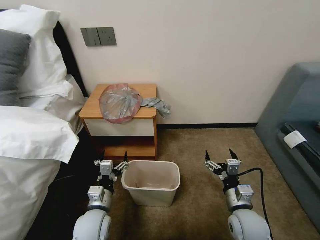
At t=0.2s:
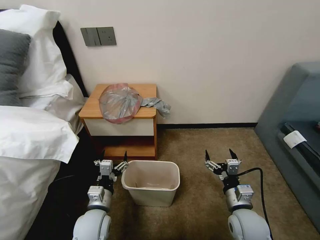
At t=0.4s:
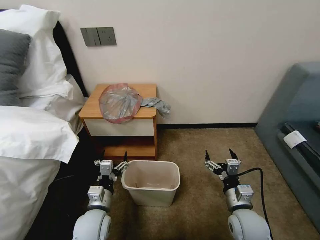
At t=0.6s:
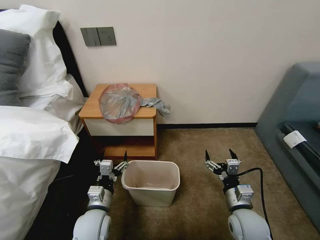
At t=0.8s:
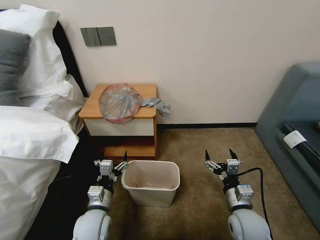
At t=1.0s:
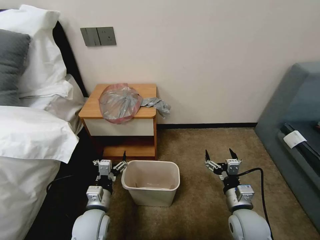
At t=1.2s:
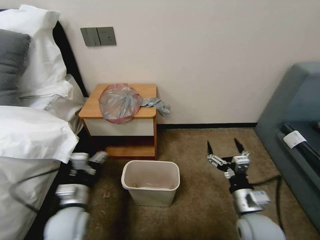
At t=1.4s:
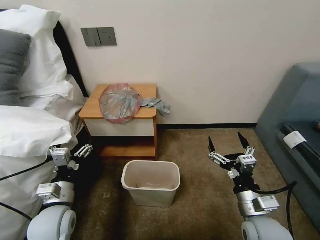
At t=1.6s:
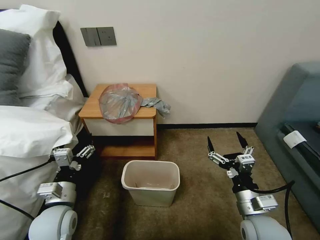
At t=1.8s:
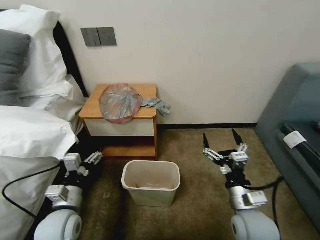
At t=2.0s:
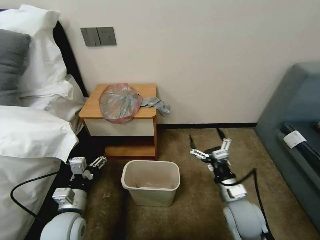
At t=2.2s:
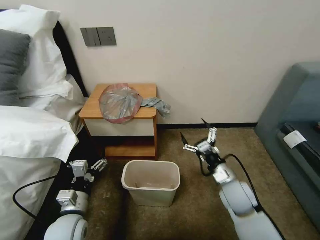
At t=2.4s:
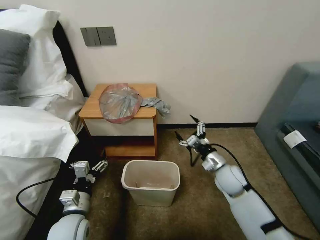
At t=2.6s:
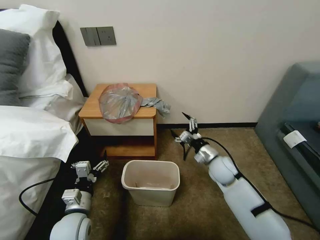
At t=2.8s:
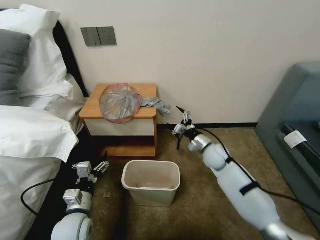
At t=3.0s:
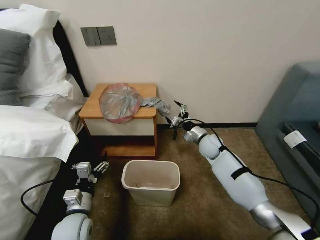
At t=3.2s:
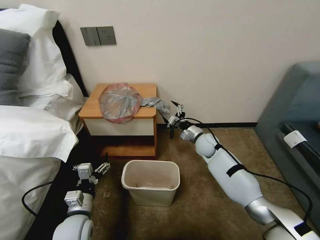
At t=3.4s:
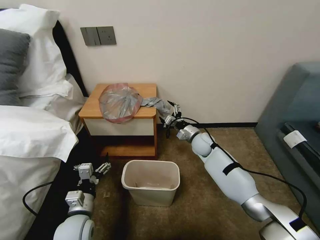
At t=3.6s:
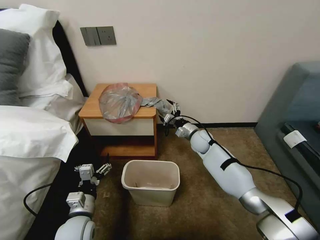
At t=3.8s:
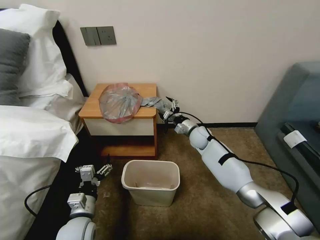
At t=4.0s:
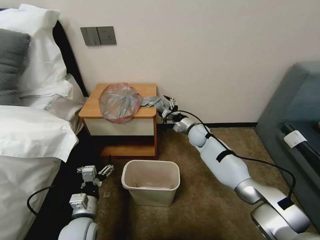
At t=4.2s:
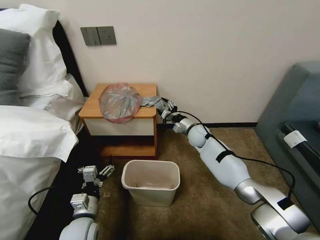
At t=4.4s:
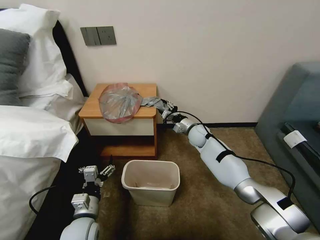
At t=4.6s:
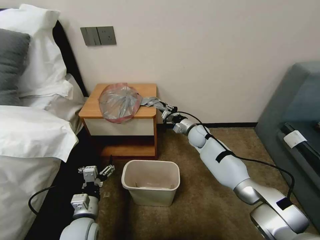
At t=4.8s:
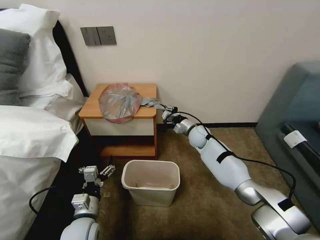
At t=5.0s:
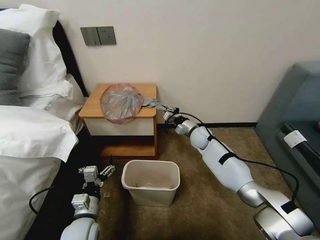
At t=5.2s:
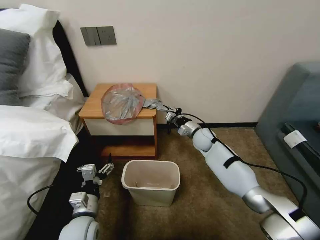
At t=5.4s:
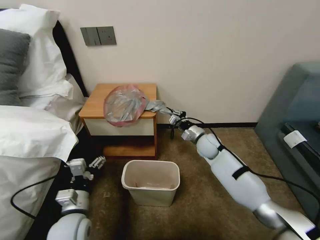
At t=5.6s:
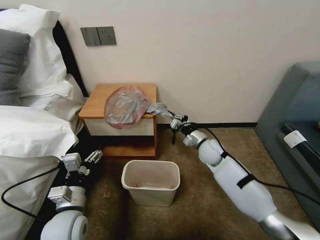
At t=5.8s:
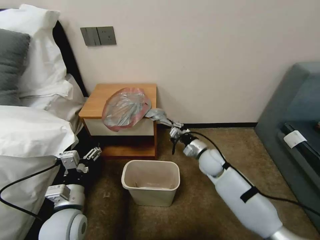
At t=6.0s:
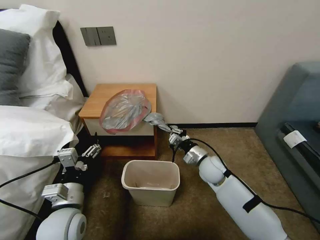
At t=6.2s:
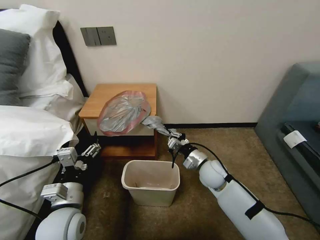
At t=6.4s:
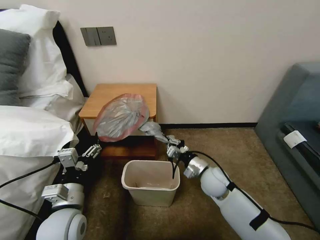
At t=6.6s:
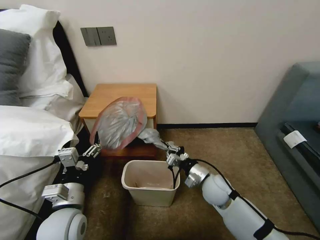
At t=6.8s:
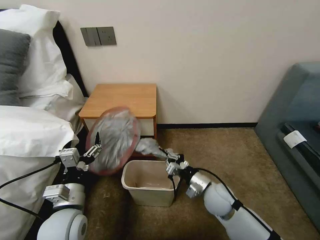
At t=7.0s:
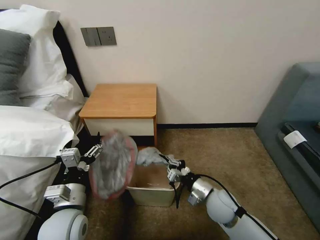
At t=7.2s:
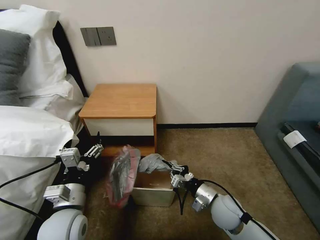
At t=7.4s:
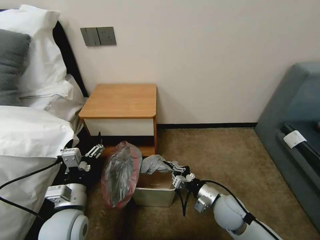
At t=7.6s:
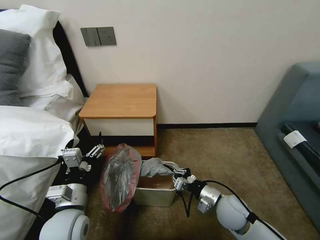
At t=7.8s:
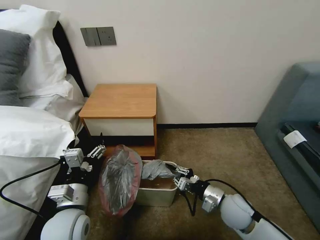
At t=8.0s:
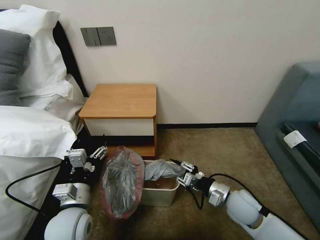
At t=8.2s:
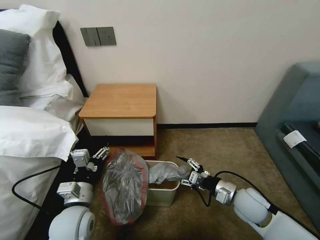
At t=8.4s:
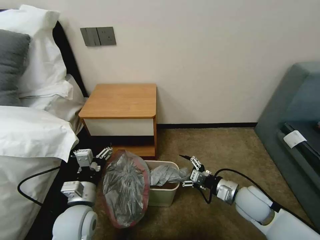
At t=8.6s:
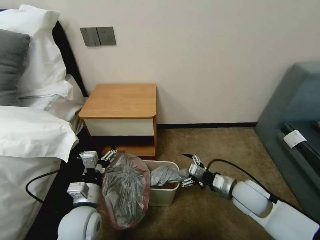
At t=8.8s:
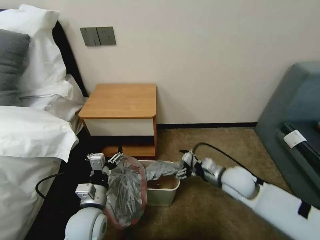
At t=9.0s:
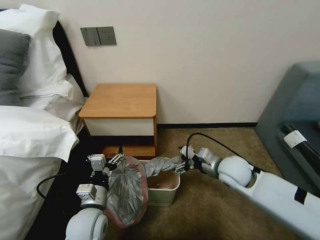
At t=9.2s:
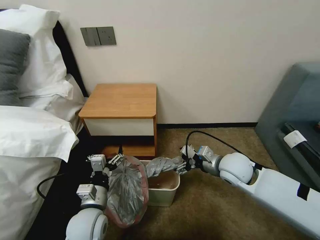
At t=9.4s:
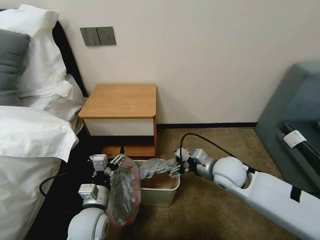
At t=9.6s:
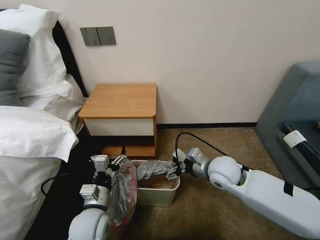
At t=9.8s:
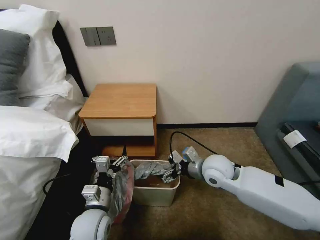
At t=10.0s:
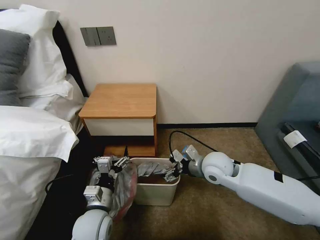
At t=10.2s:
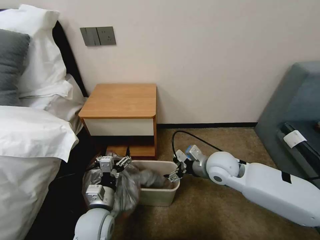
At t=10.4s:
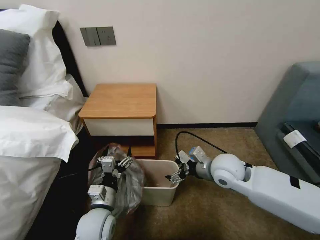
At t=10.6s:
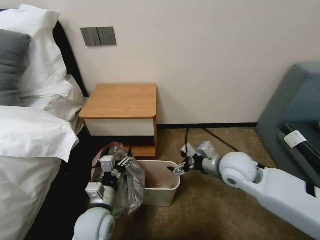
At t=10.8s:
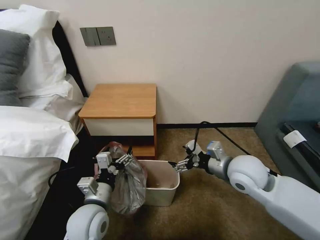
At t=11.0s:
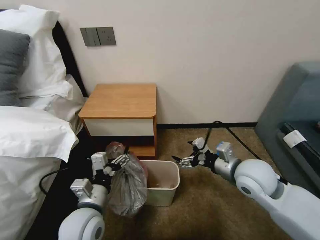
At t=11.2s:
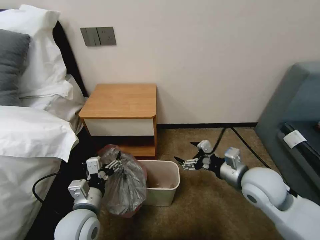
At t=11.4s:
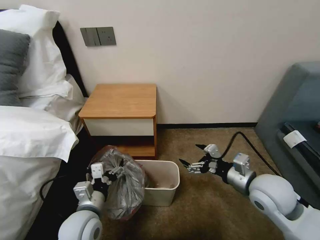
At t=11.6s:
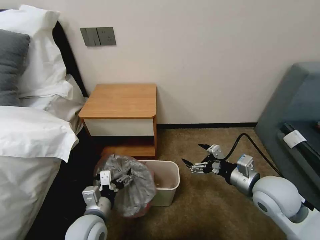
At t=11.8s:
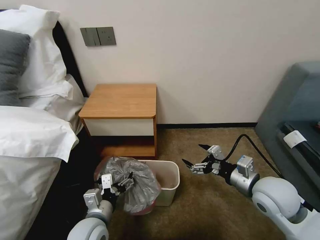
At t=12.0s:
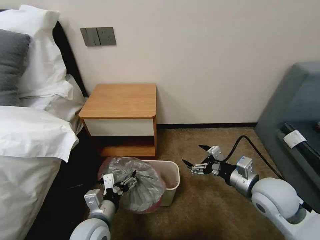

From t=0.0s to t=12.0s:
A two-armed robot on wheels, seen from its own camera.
Task of the whole recording: Pick up the garbage bag from the table and place it over the trash can.
From t=1.6s to t=3.0s: The left gripper moves downward, about 5 cm. The right gripper heads forward, covering approximately 30 cm.
From t=3.0s to t=4.4s: The right gripper heads forward, covering some 5 cm, and closes up.
From t=4.4s to t=6.0s: The left gripper travels upward by about 10 cm, while the right gripper travels backward by roughly 15 cm, and closes up.
From t=6.0s to t=7.6s: The right gripper goes about 15 cm backward.
From t=7.6s to t=9.0s: The left gripper heads downward, covering about 5 cm. Meanwhile the right gripper is displaced upward and forward by some 15 cm, and opens its fingers.
From t=9.0s to t=10.4s: The grippers stay close to where they were, moving slightly.
From t=10.4s to t=12.0s: The right gripper moves to the right and backward, roughly 10 cm.

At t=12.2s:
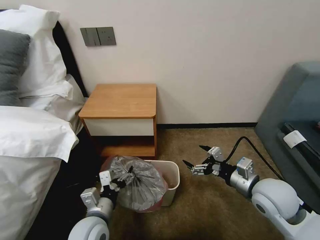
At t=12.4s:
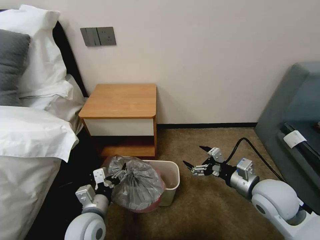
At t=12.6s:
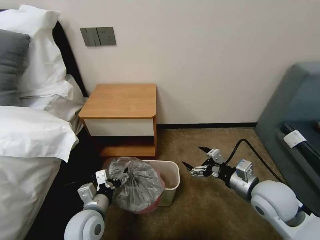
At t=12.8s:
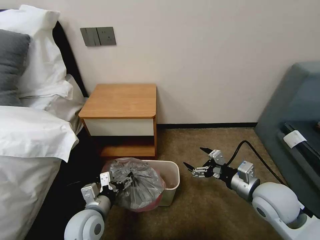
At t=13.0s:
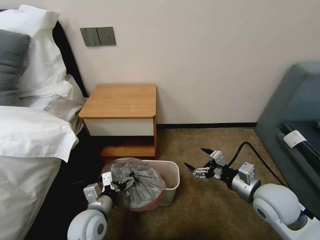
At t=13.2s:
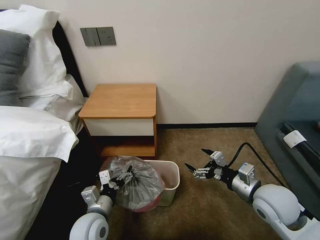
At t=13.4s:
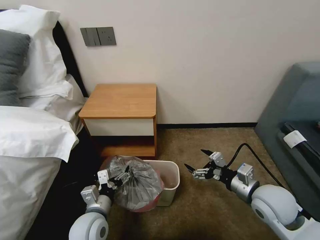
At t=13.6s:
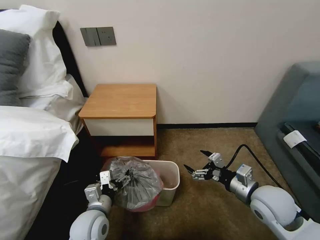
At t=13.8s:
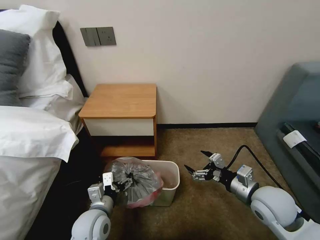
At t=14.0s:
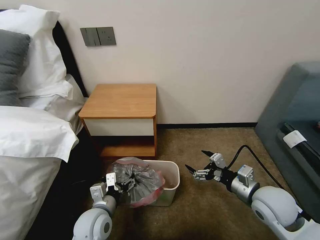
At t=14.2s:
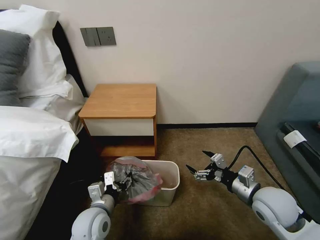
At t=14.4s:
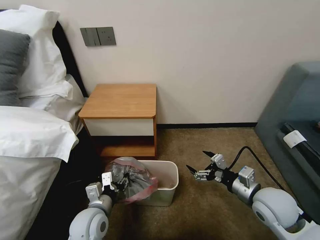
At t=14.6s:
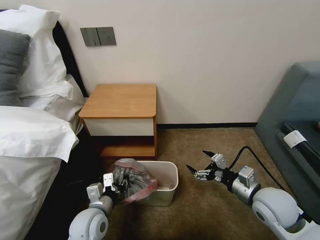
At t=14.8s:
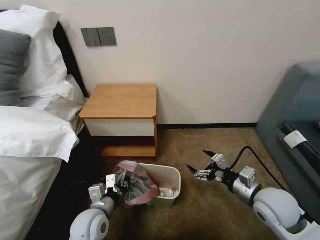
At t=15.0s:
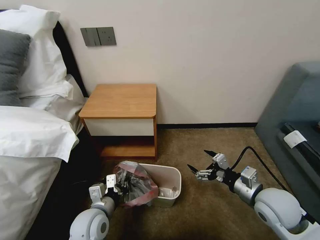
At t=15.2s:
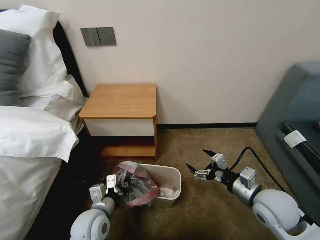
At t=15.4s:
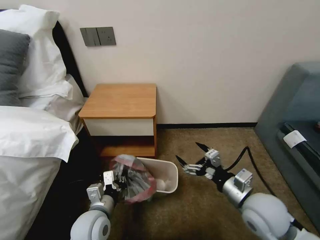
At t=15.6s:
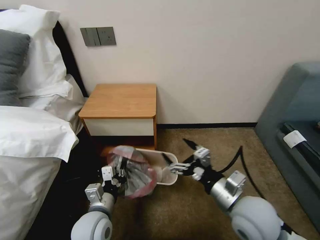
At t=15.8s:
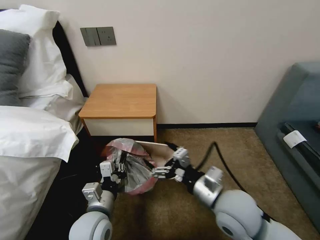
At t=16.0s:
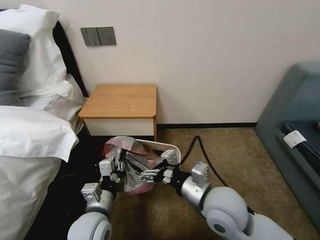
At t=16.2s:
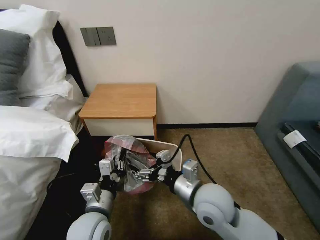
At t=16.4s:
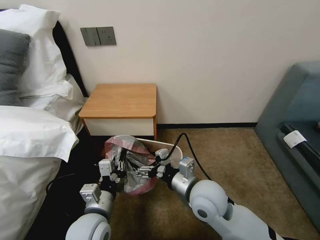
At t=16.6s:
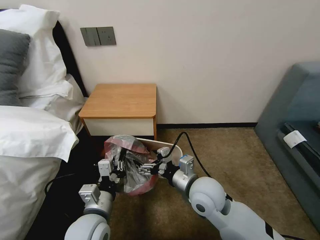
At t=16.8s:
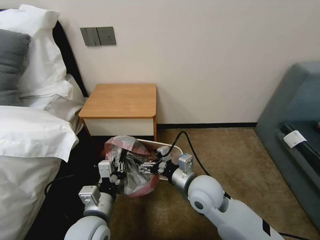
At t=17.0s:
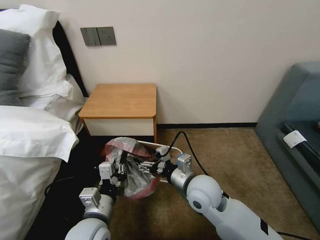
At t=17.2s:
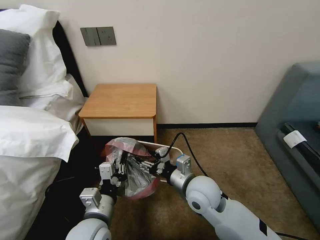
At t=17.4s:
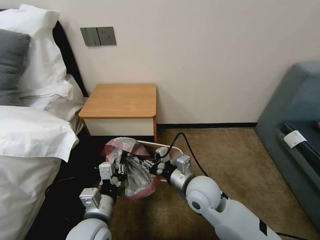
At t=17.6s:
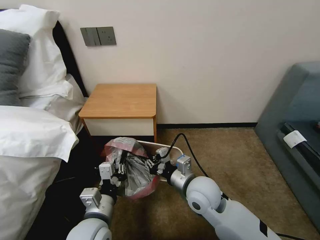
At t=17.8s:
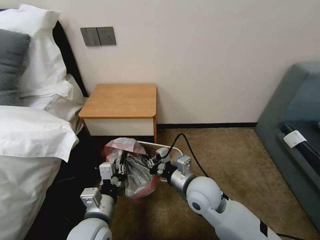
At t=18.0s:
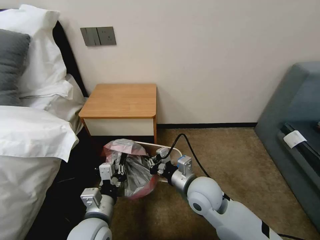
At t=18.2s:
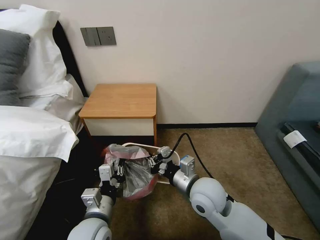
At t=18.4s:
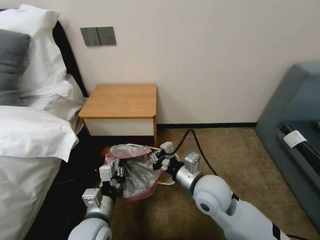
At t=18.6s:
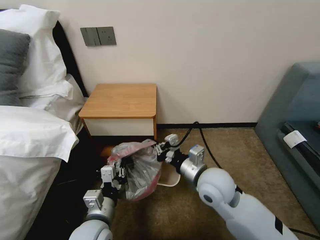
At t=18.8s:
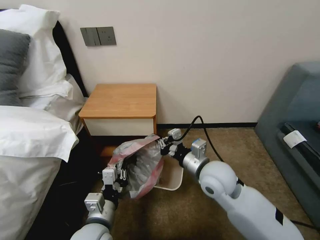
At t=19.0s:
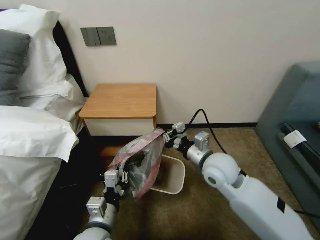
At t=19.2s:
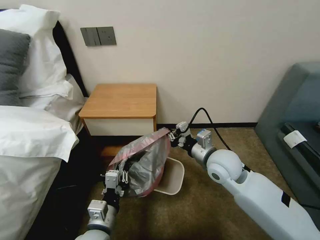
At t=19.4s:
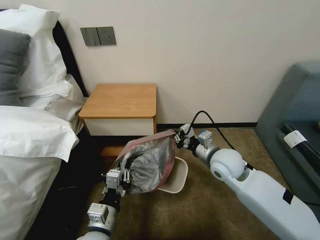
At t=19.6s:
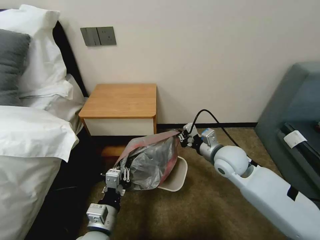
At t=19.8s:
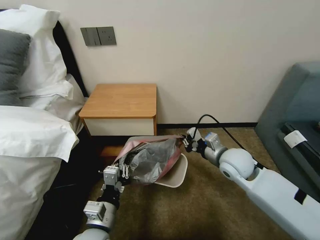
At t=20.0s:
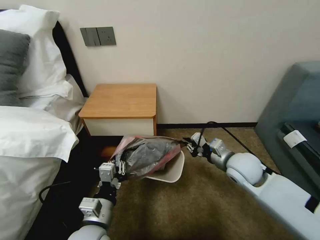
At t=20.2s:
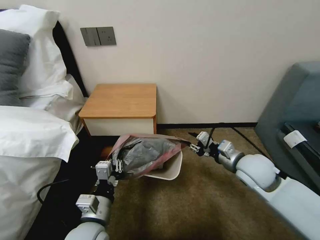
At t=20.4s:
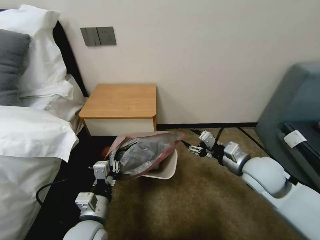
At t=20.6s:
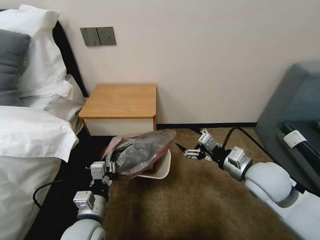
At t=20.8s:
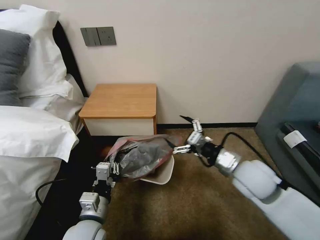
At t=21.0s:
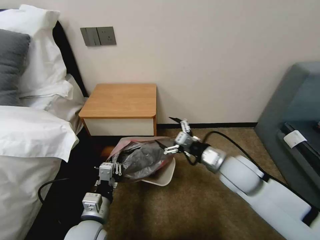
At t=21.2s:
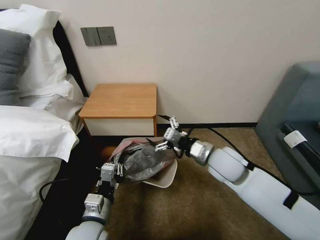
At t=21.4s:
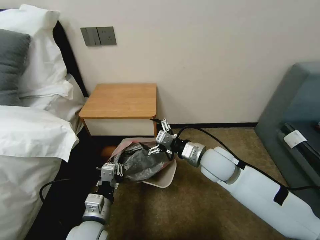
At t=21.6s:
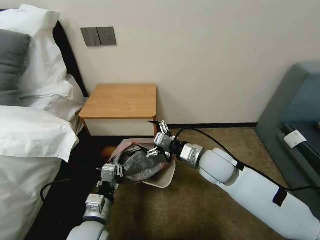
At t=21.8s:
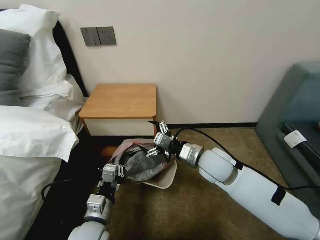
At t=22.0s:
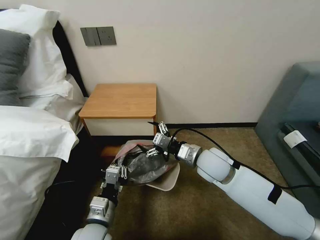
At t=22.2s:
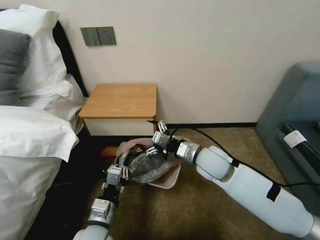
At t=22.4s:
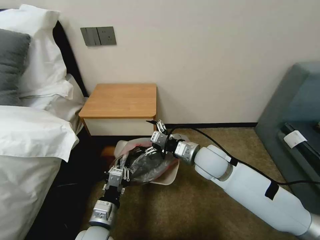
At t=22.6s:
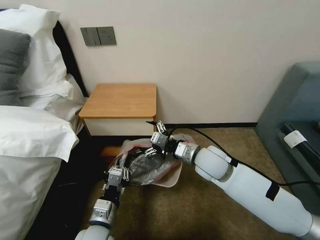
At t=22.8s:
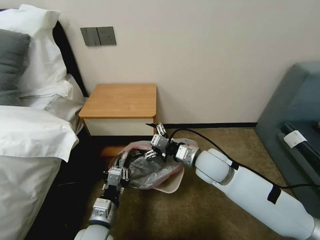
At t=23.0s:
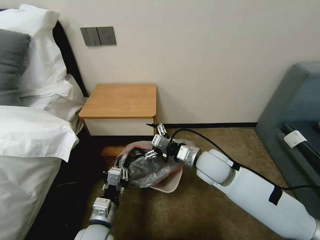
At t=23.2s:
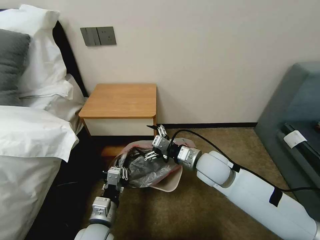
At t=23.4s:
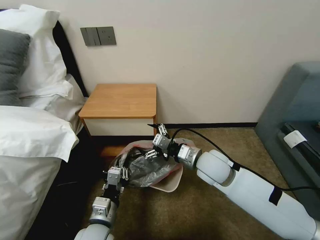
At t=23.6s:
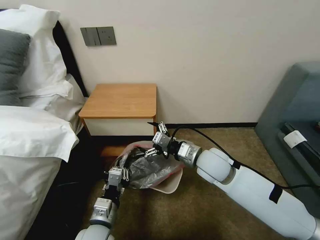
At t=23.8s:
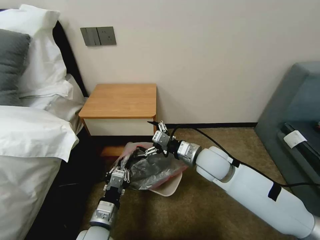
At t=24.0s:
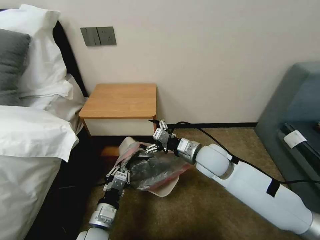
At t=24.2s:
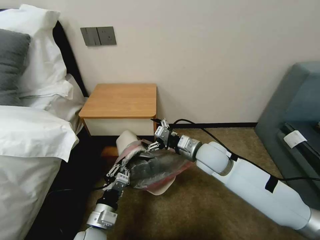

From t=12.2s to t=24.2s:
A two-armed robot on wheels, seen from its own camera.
Task of the whole recording: Pick up the garbage bag from the table and place it over the trash can.
From t=12.2s to t=13.8s: There are only small adjustments of the grippers.
From t=13.8s to t=15.2s: The left gripper closes its fingers.
From t=15.2s to t=16.6s: The right gripper travels to the left by roughly 20 cm. Meanwhile the left gripper heads upward, covering roughly 5 cm.
From t=16.6s to t=18.2s: The right gripper closes.
From t=18.2s to t=19.8s: The right gripper is displaced to the right and forward by approximately 15 cm.
From t=19.8s to t=21.2s: The right gripper opens up.
From t=21.2s to t=22.6s: The grippers move only a little.
